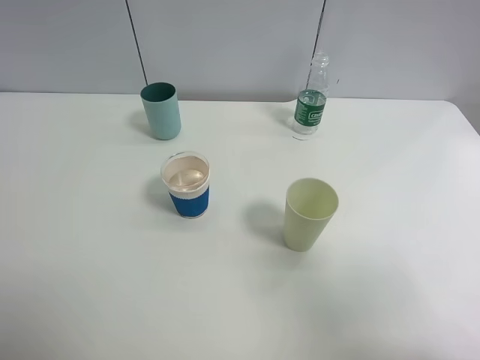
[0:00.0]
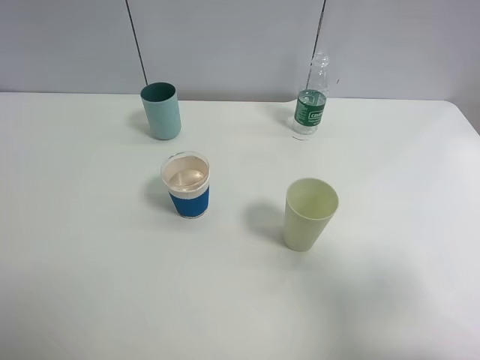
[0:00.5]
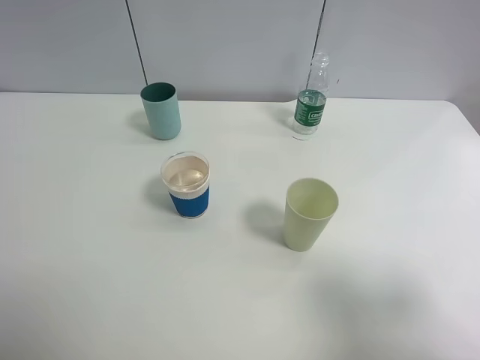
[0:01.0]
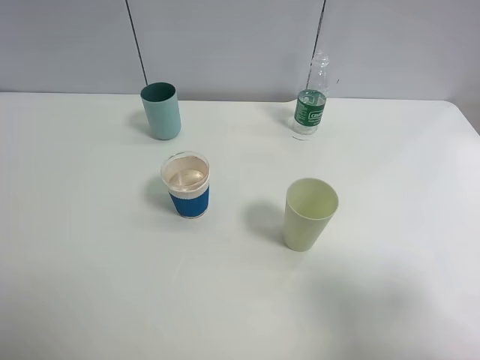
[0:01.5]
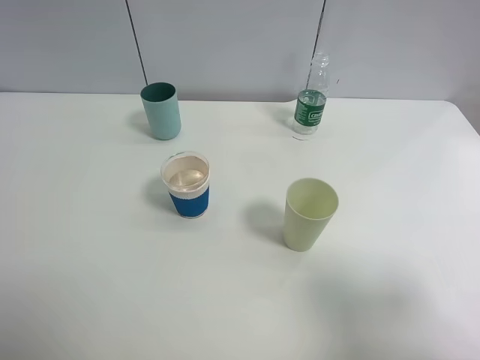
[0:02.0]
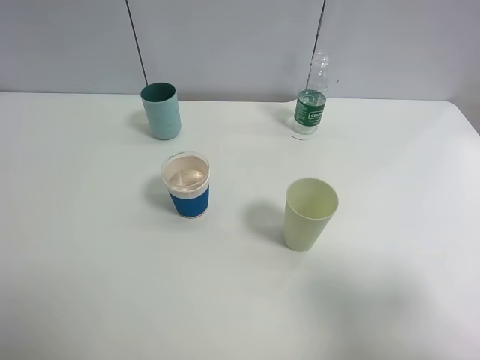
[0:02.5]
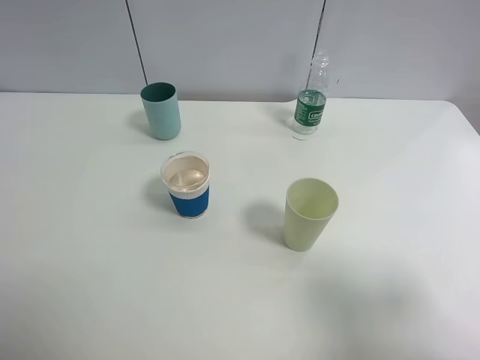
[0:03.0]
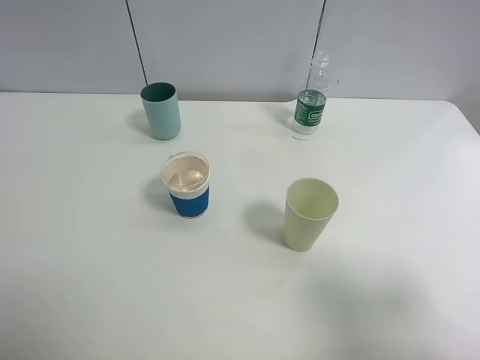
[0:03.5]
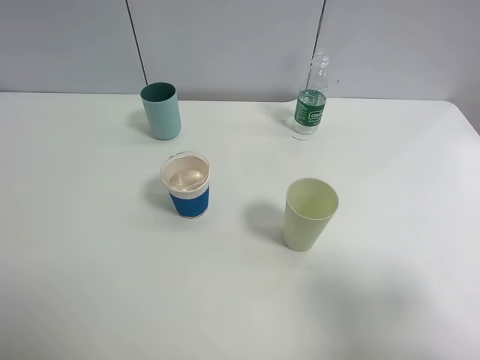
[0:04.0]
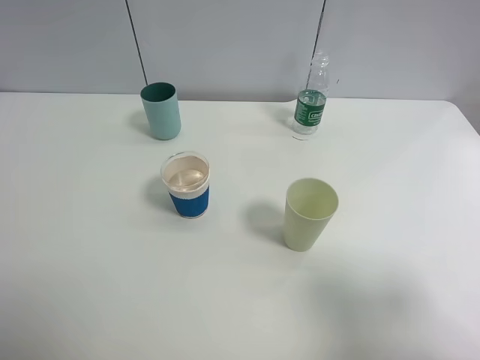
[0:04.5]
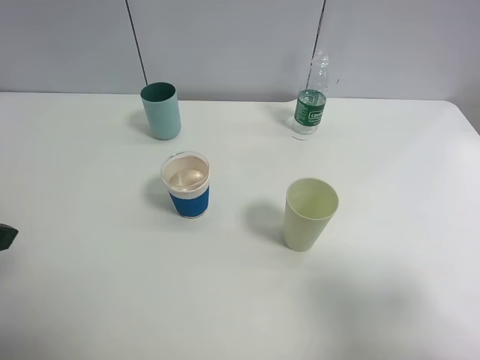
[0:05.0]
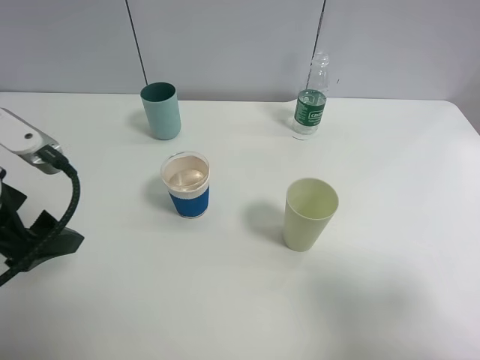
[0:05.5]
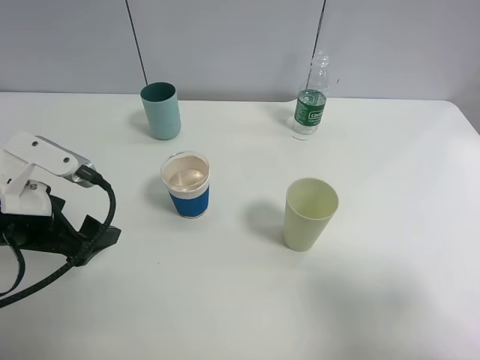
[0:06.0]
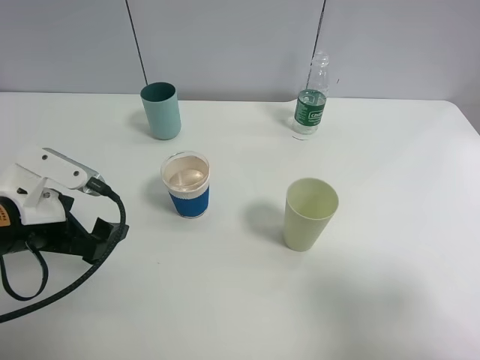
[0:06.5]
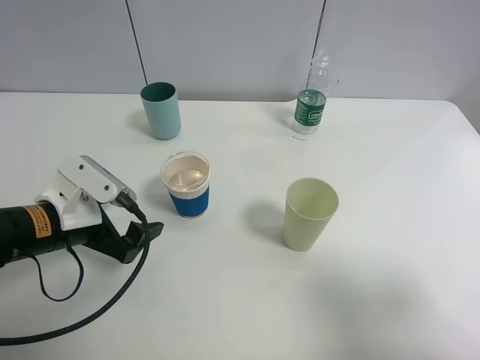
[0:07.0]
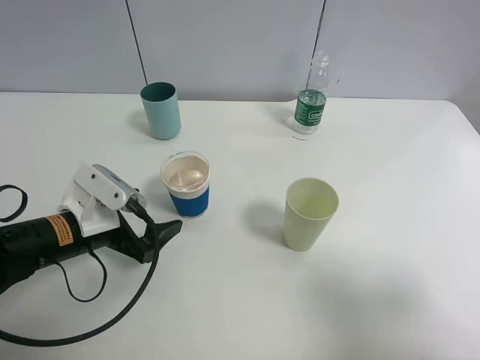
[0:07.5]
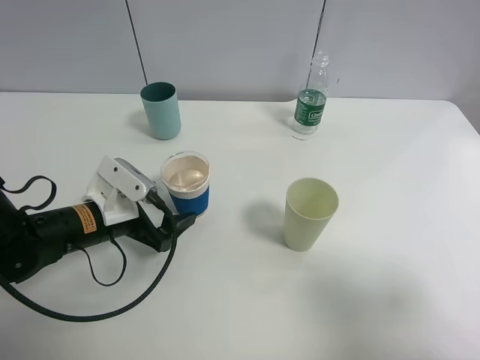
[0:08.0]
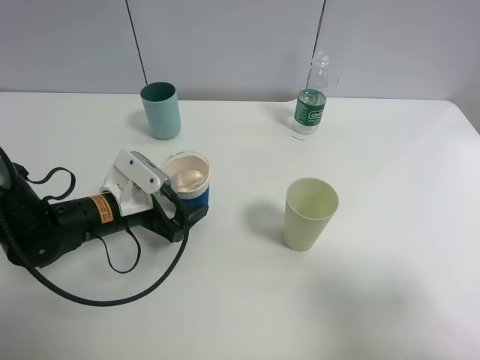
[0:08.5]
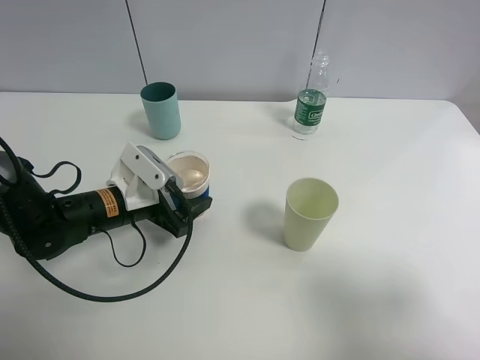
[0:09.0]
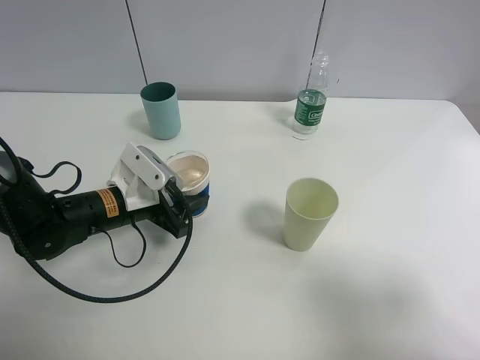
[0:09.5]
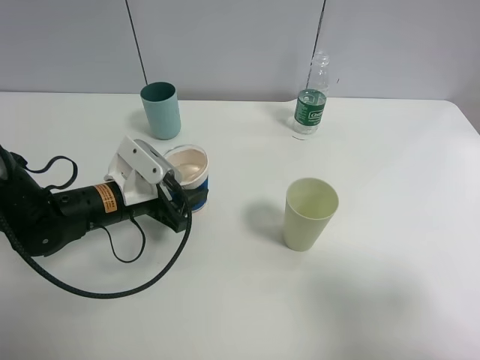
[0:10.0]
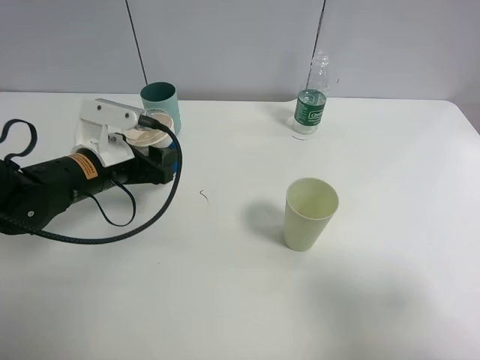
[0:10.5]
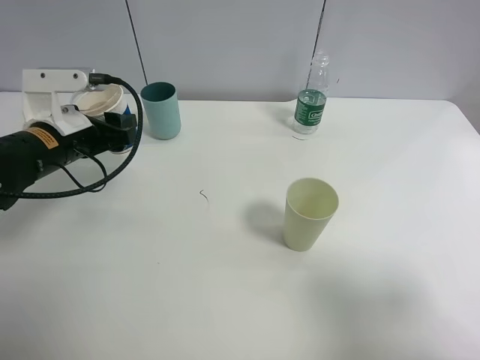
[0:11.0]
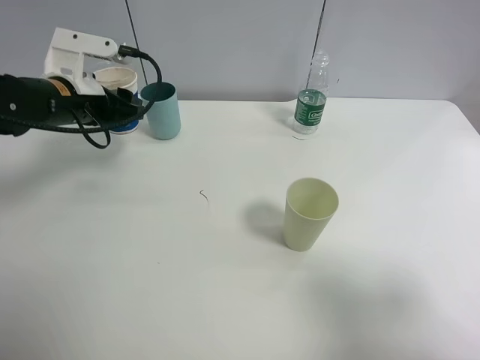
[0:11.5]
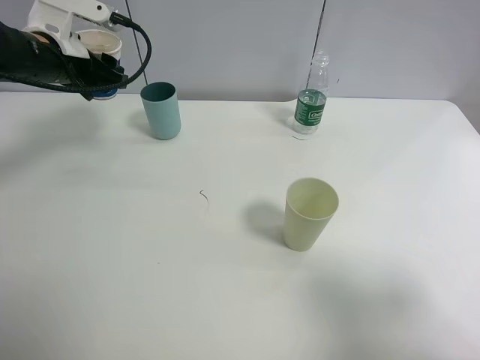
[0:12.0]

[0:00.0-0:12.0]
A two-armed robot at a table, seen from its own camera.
Task of the whole recording: use a clamp to hold the bottle of the drink, pour the beverage into a random cup, then clamp the cup containing the drink and pour the drink into another random cup.
Step, 0:00.0 to 0:10.0: Pick up the paper cup with left gripper.
0:02.0 to 0:04.0: Neither gripper changes place.
0:04.0 to 0:06.0: The left gripper travels forward, downward and to the right by roughly 20 cm.
0:06.0 to 0:08.0: The left gripper travels downward, forward and to the right by roughly 10 cm.
0:08.0 to 0:10.0: The left gripper closes.
0:10.0 to 0:12.0: The left gripper goes approximately 20 cm upward, forward and to the left.

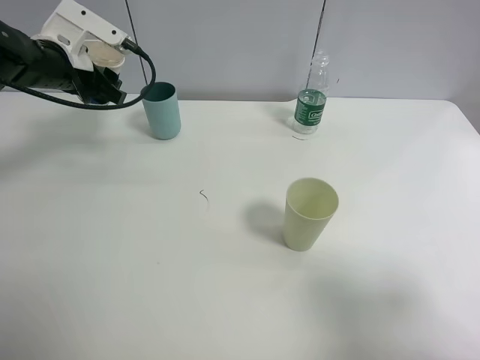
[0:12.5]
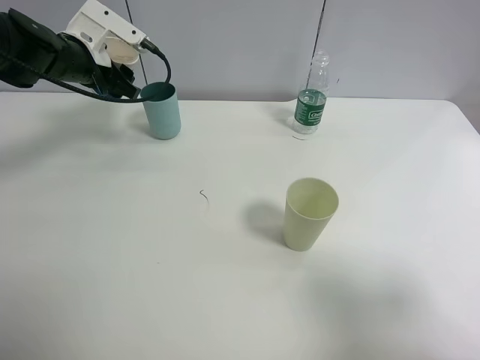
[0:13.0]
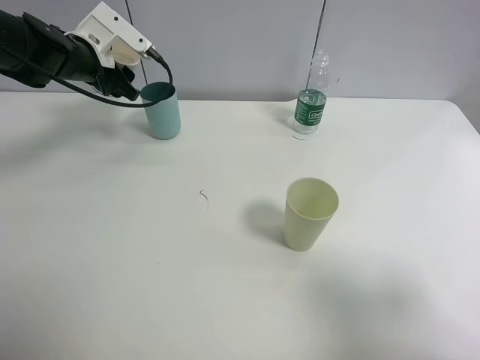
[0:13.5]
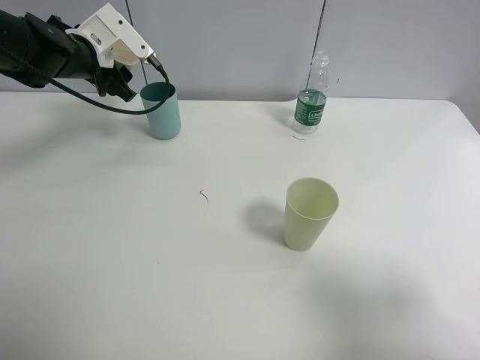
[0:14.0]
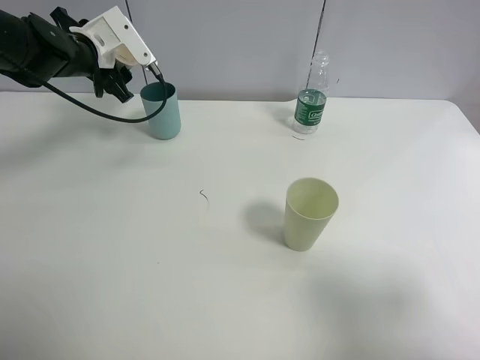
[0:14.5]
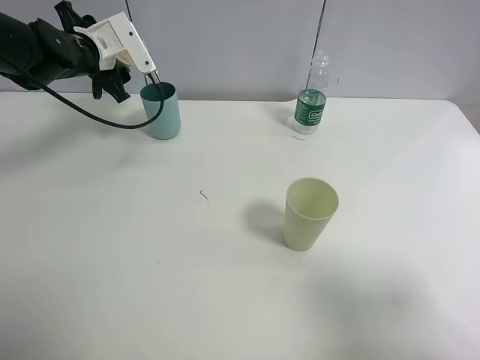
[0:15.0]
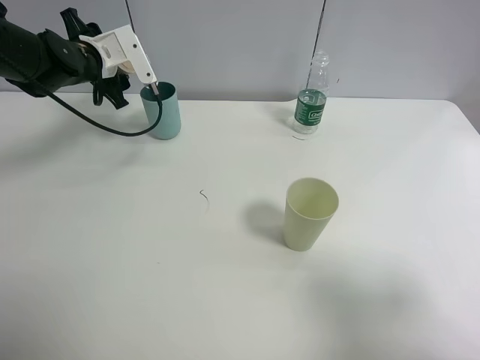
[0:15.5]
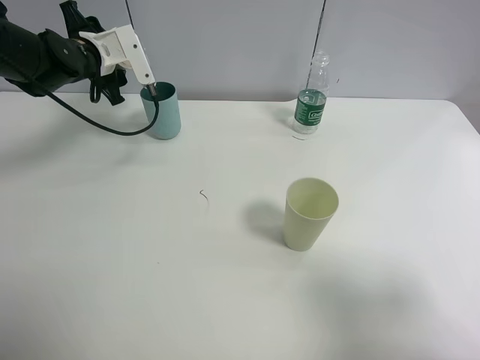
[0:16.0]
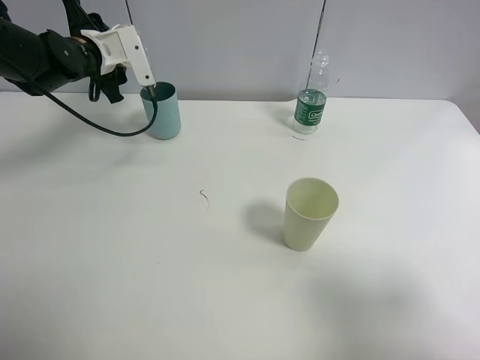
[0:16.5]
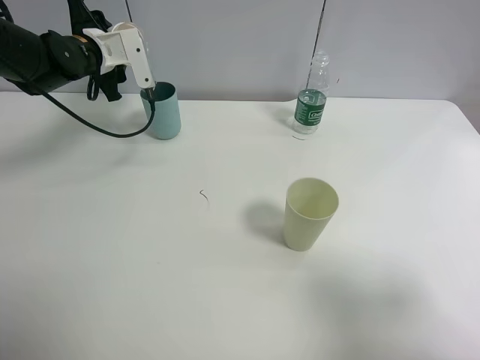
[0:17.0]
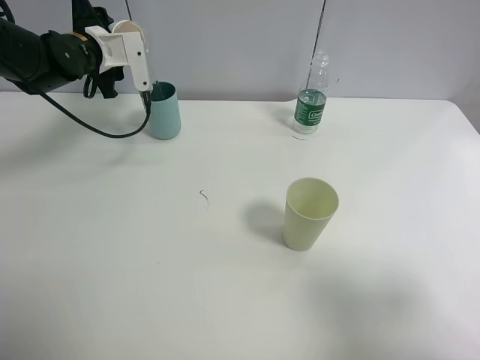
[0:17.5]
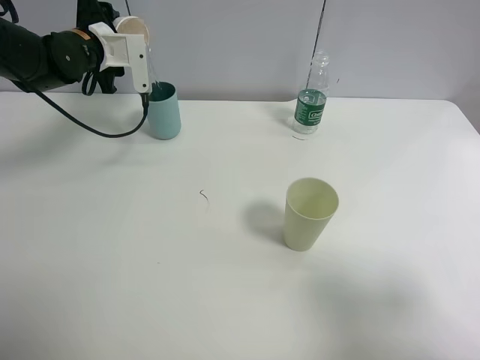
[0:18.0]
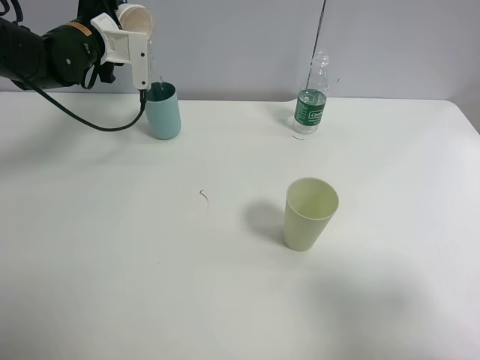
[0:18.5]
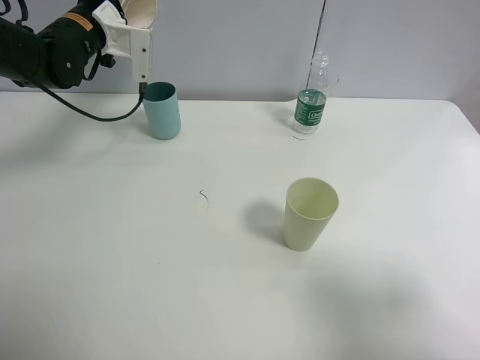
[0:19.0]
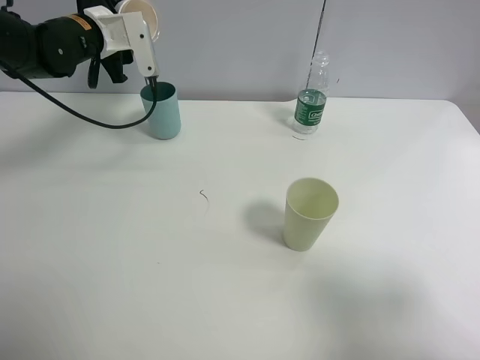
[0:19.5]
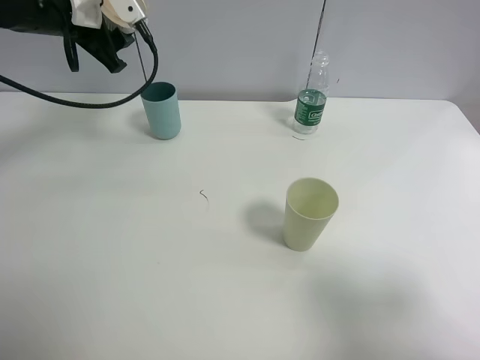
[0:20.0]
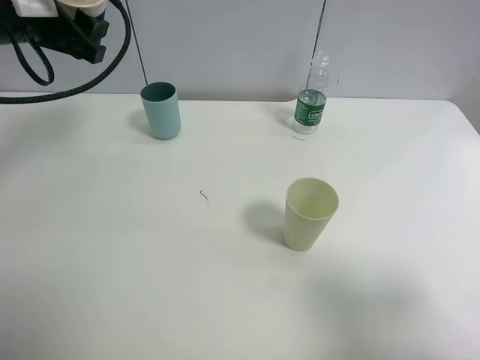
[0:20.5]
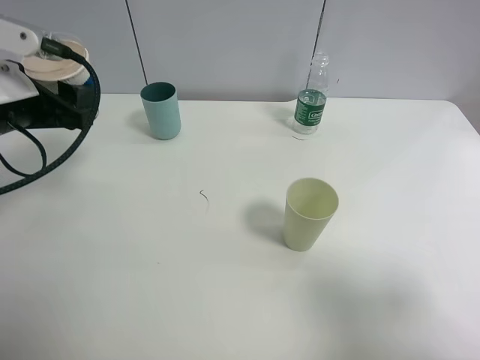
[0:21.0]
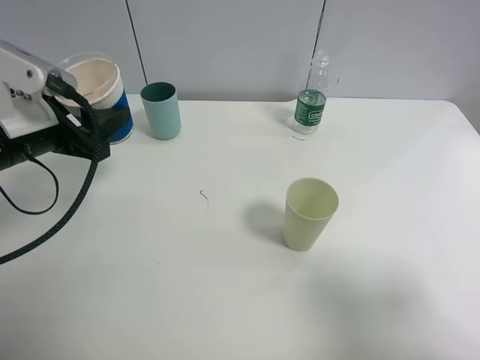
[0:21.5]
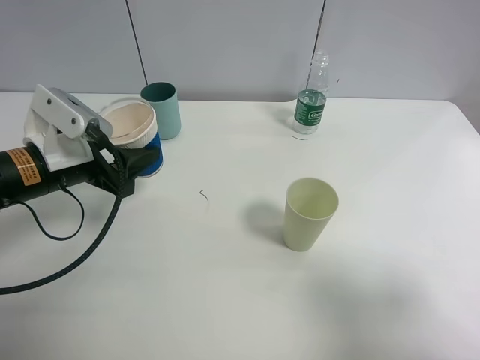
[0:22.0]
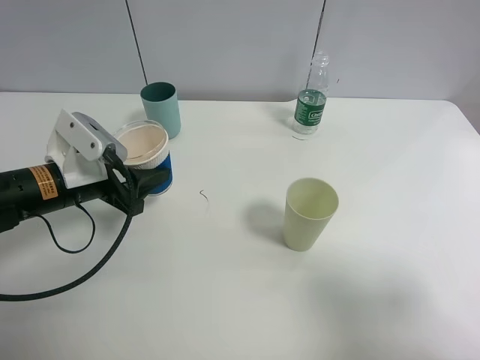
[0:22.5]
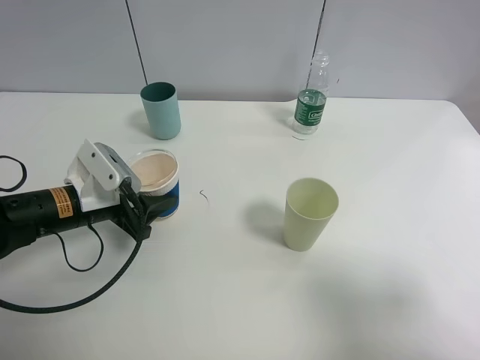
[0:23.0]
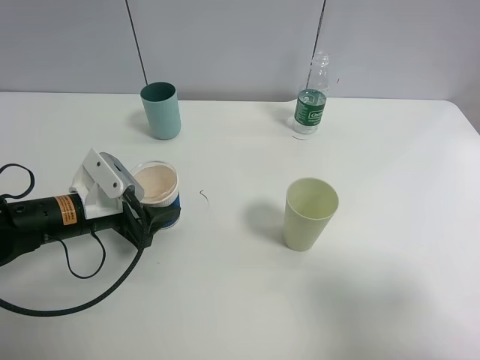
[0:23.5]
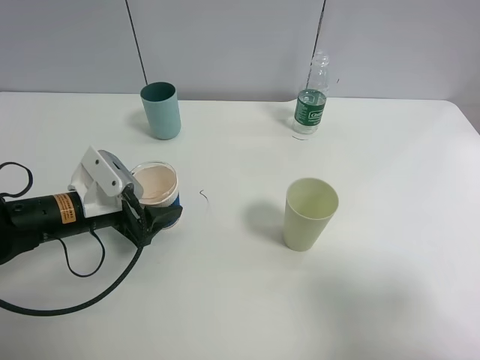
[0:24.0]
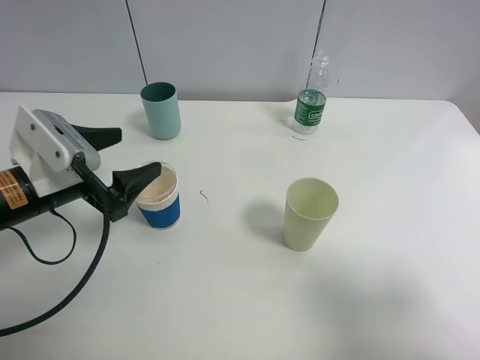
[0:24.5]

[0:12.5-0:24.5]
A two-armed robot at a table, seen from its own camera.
Task of the whole recording: use a clamp to hold the bottle of the drink, pour the beverage into a random cup, then clamp the cup containing the drink and pour the drink into another random cup.
Step, 0:12.5 to 0:19.5: Pour the water into the blue plastic cup with left gripper.
Step, 0:20.0 to 0:24.0: Place the paper cup on the table with left gripper.
0:12.5 to 0:14.5: The left gripper moves approximately 5 cm.
0:18.5 to 0:20.5: The left gripper moves backward and upward, some 15 cm.
0:20.5 to 0:22.5: The left gripper goes roughly 20 cm downward and backward.
0:22.5 to 0:24.5: The left gripper opens up.

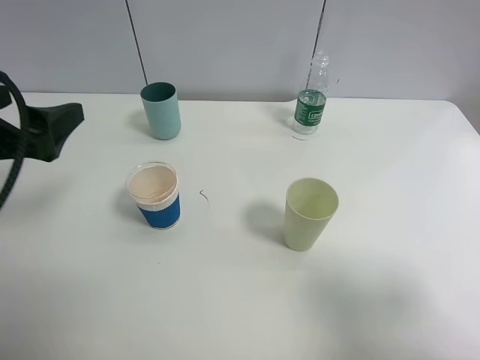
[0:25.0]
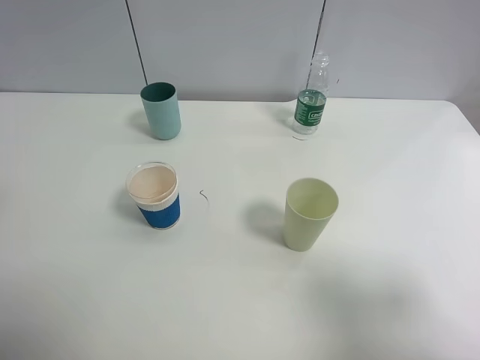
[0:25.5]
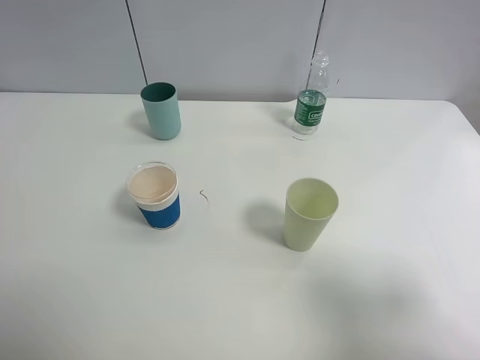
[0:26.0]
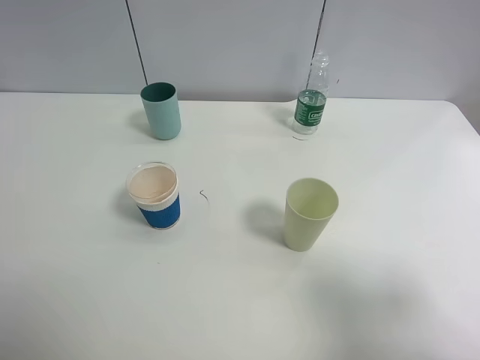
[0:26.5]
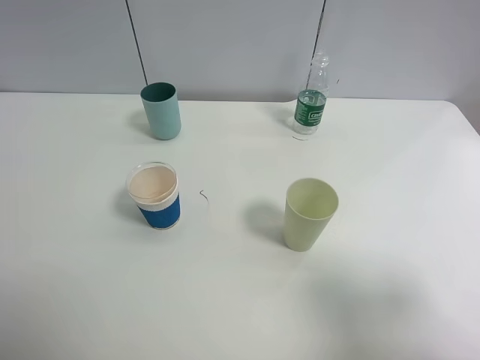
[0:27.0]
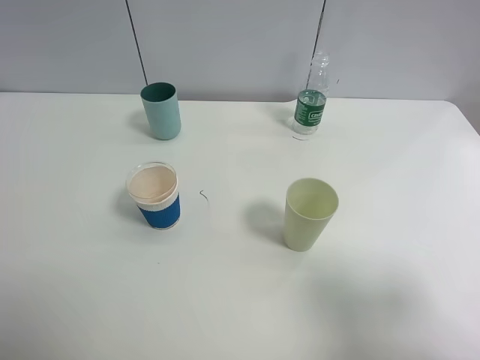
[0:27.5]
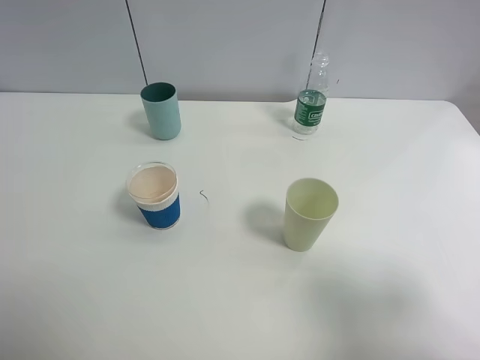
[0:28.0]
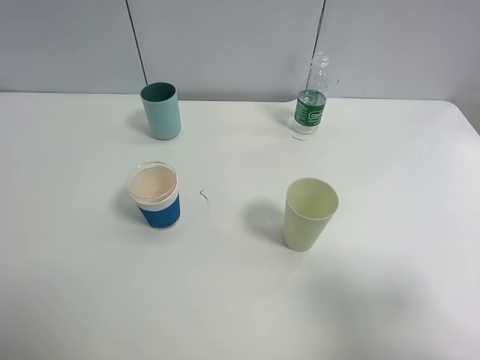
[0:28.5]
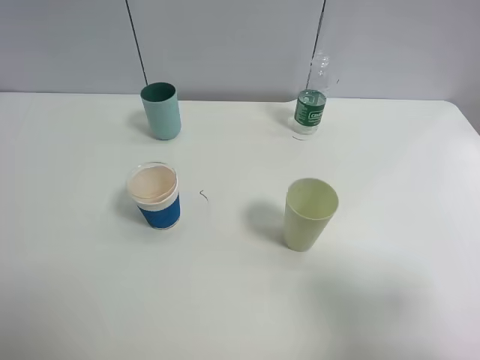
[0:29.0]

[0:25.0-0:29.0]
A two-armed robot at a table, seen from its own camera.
Task of the whole recording: use a clamp to hold the bottle of the drink, pour the beverage into a random cup, then clamp the cup containing the drink and pour the drink into another random cup.
0:25.0 to 0:27.0: The left gripper goes about 15 cm backward.
0:27.0 to 0:29.0: Neither gripper changes place.
